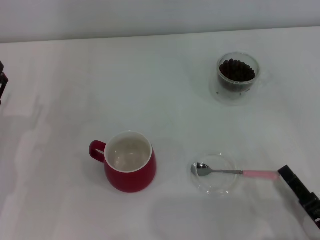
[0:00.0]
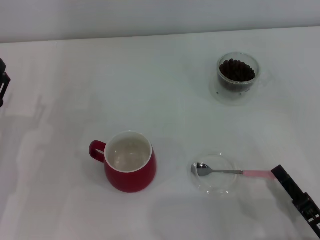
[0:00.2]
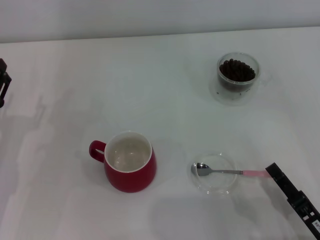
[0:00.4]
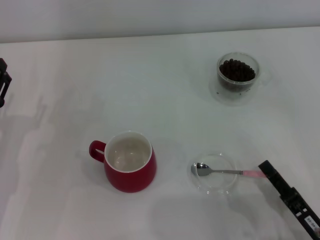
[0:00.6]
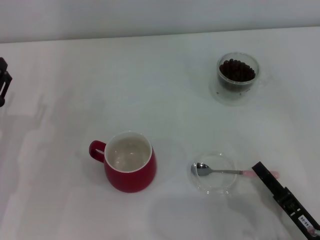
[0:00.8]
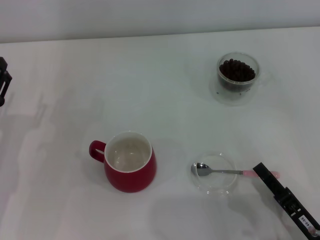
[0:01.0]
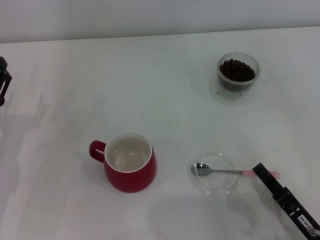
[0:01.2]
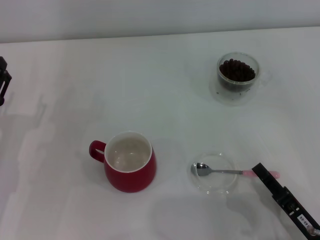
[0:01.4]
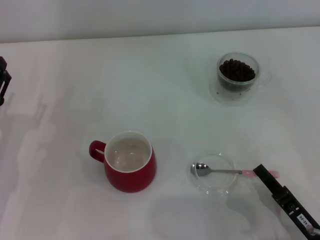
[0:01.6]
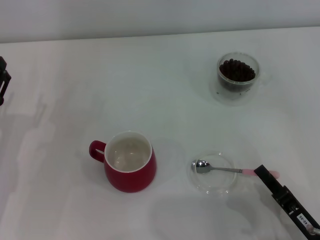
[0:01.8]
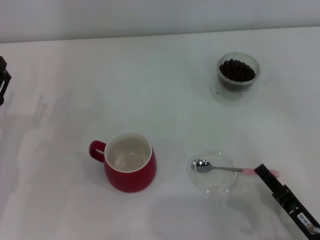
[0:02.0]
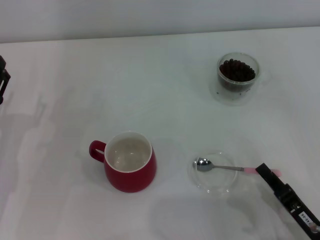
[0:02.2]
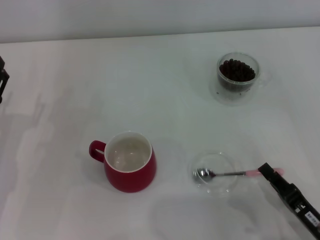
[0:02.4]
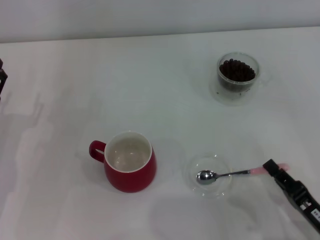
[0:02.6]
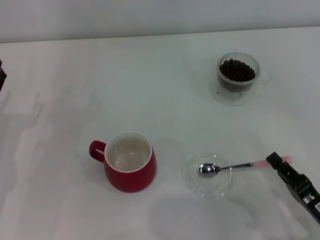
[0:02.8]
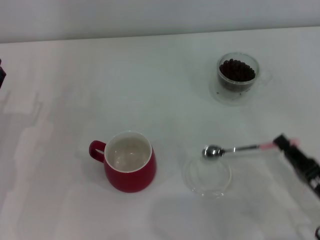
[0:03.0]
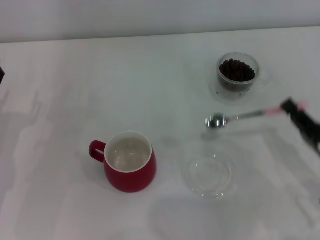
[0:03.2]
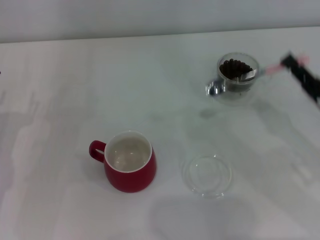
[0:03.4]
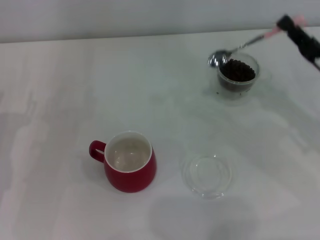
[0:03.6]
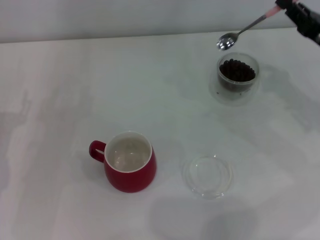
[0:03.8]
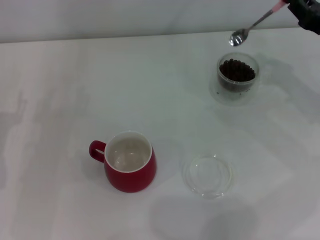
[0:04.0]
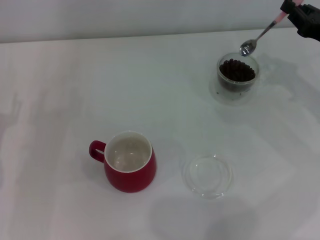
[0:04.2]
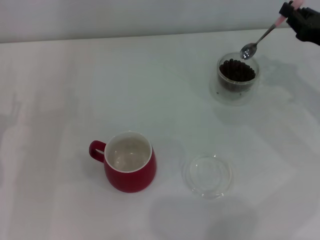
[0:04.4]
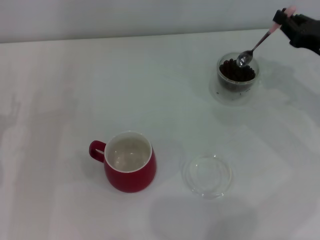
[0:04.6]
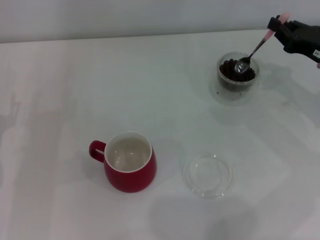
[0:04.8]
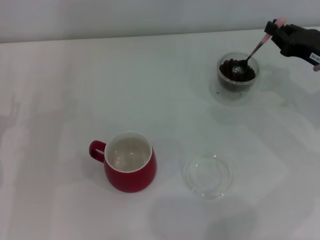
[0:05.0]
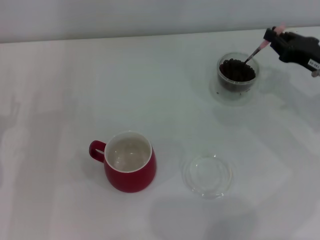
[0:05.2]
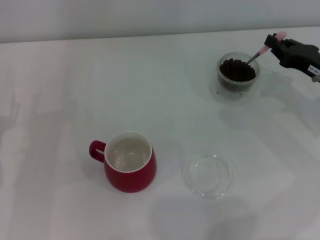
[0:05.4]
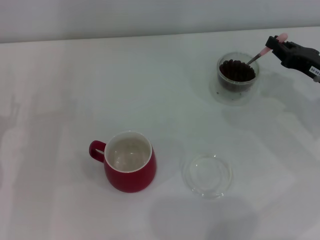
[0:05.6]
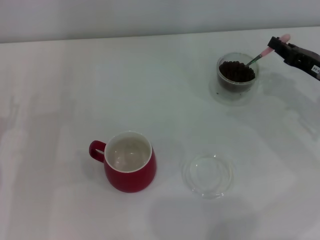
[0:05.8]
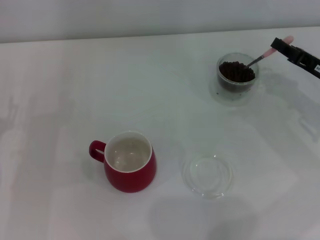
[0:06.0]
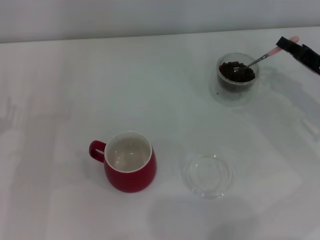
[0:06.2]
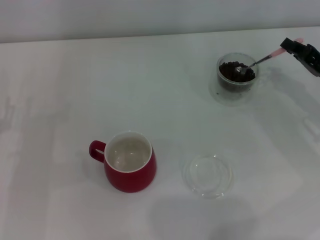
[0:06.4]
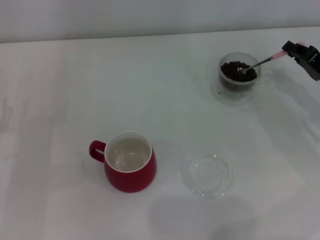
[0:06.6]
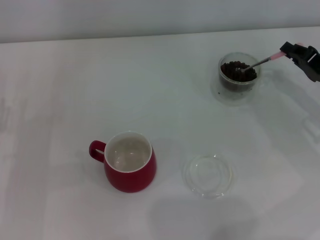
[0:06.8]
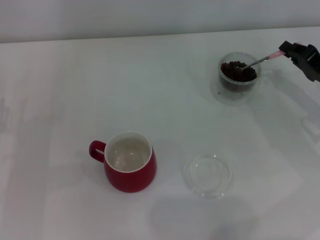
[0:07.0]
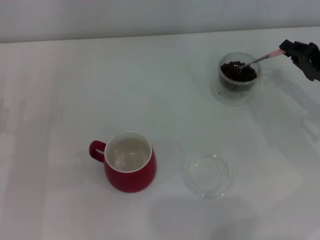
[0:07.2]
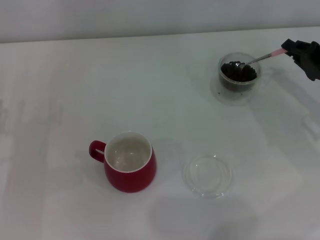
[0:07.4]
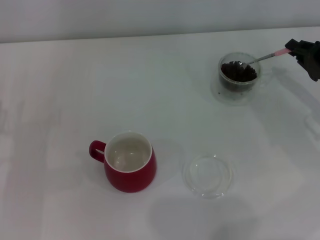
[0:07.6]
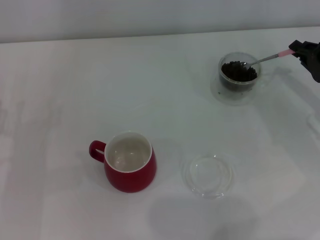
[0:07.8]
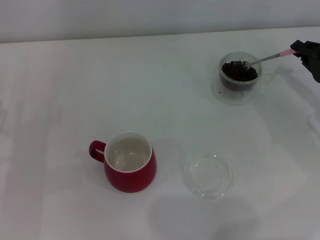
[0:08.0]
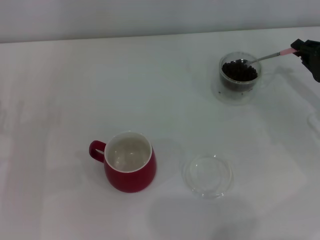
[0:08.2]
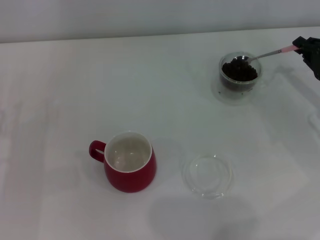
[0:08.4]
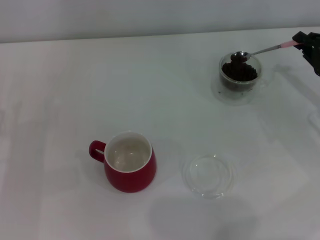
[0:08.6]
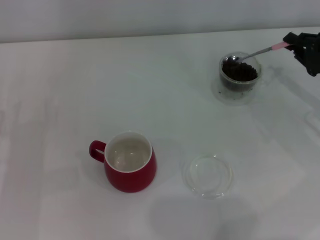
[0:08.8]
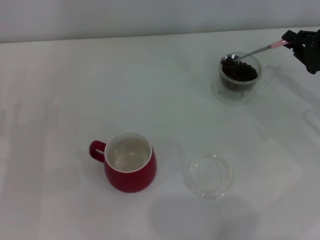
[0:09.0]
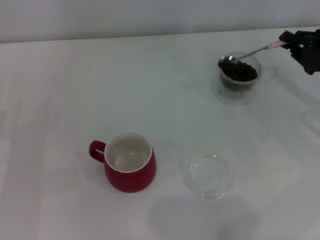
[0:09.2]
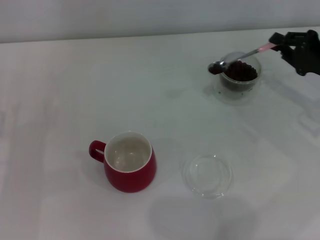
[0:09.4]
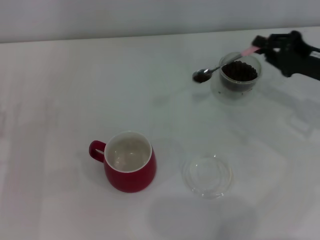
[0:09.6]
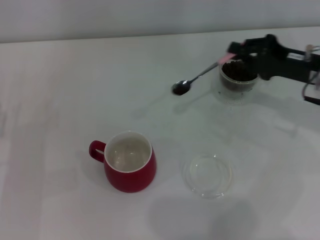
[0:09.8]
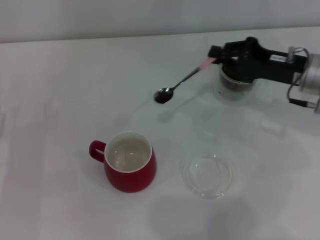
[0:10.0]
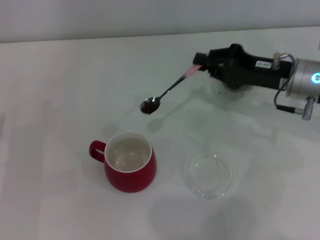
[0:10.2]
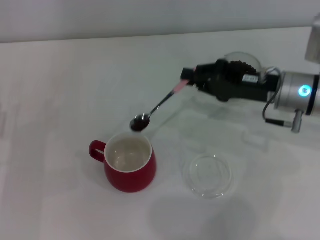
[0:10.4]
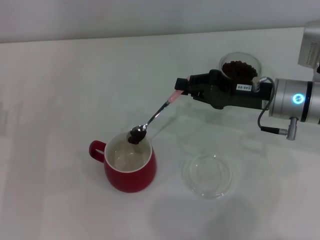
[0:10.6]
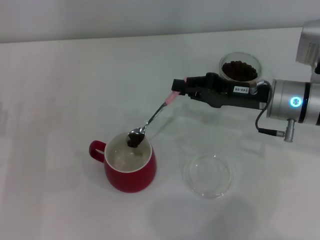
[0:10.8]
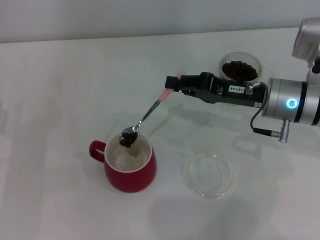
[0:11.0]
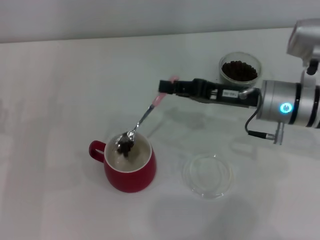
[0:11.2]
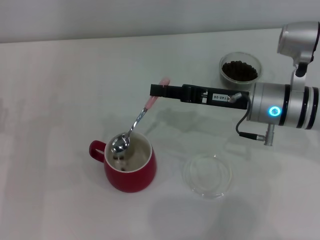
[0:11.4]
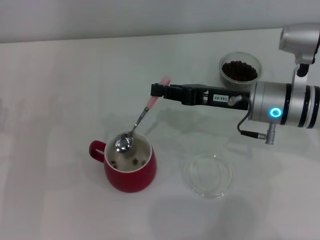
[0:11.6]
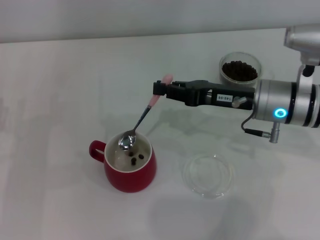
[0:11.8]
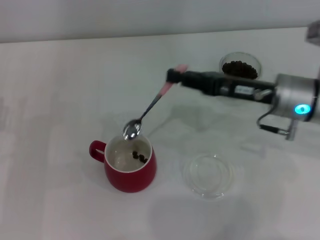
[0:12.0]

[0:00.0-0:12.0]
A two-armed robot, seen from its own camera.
Task of the whole recording: Use a pink spoon to take out the coffee beans from the glass and pour them into the red cup.
Step, 0:00.0 to 0:03.0: Pick up the spoon with the right gripper.
Step, 0:03.2 to 0:12.0: Scoop a spoonful of beans into the cup with the right gripper.
0:00.0 to 0:01.6: The right gripper closes its fingers.
0:01.6 to 0:03.0: The grippers make only small movements.
0:03.0 to 0:04.4: The right gripper is displaced forward and upward by some 25 cm.
0:07.6 to 0:09.0: The grippers make only small movements.
0:09.0 to 0:10.4: The right gripper is displaced to the left by some 10 cm.

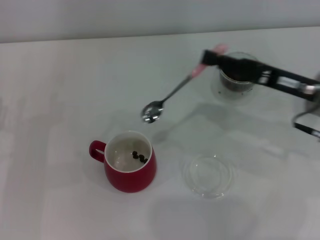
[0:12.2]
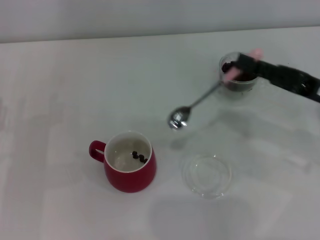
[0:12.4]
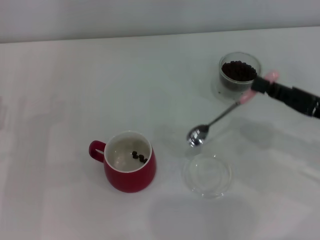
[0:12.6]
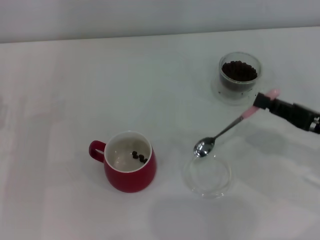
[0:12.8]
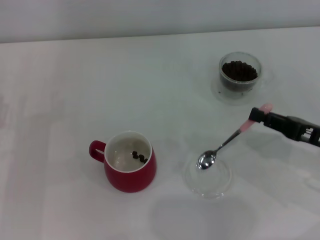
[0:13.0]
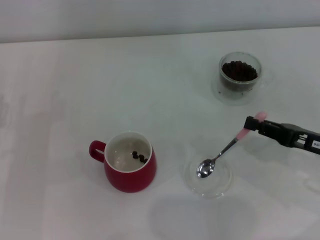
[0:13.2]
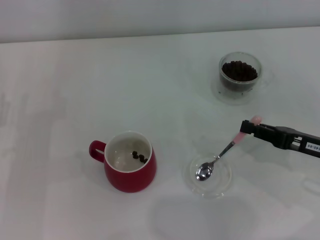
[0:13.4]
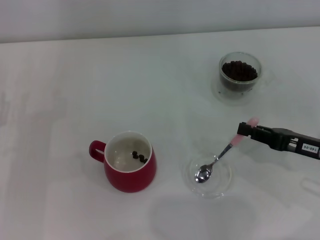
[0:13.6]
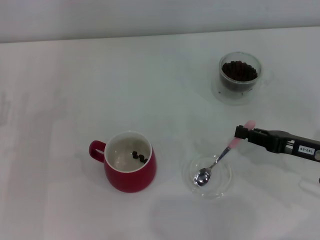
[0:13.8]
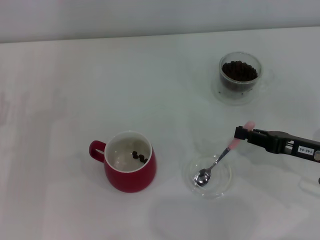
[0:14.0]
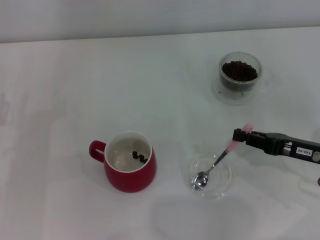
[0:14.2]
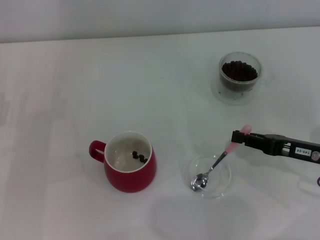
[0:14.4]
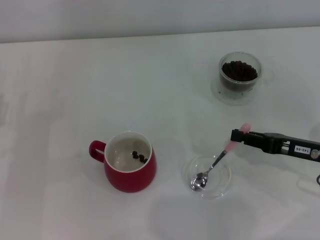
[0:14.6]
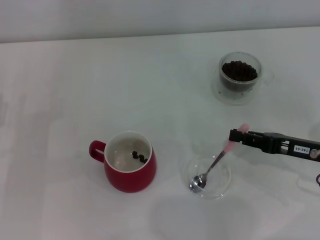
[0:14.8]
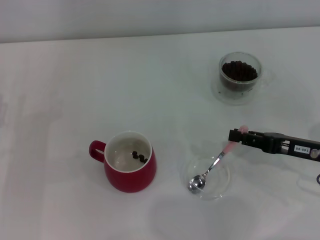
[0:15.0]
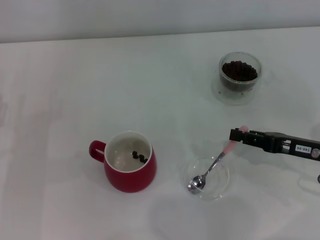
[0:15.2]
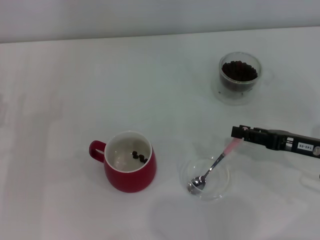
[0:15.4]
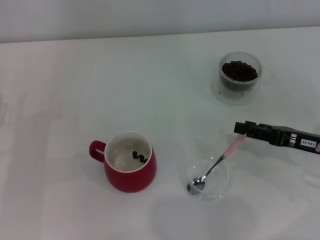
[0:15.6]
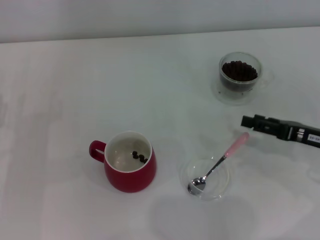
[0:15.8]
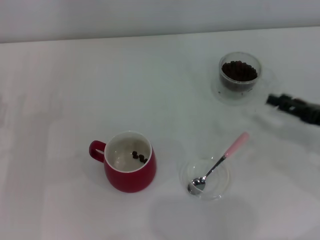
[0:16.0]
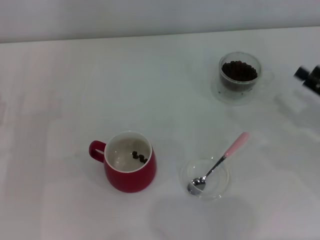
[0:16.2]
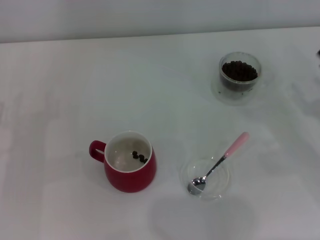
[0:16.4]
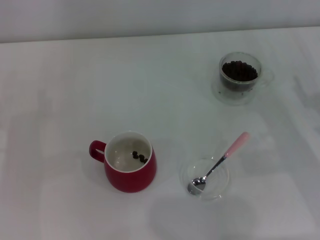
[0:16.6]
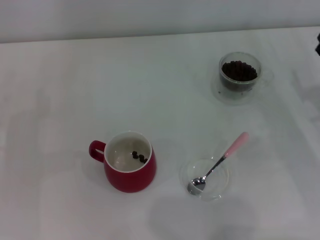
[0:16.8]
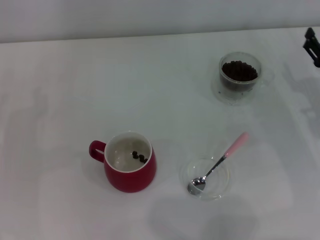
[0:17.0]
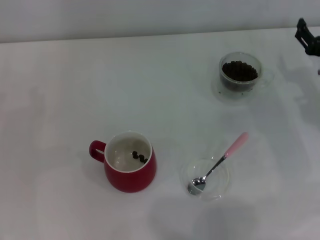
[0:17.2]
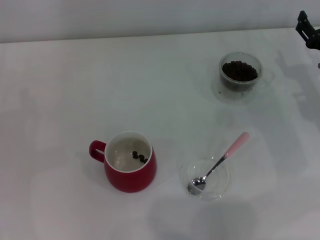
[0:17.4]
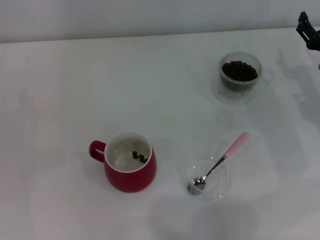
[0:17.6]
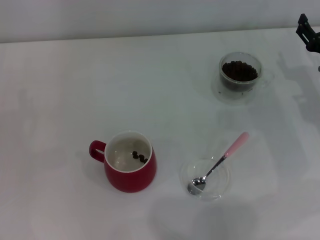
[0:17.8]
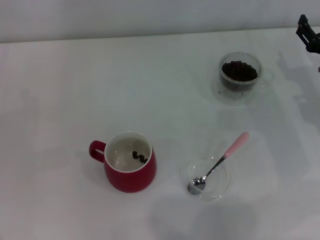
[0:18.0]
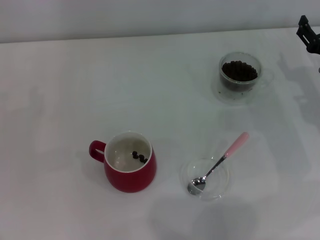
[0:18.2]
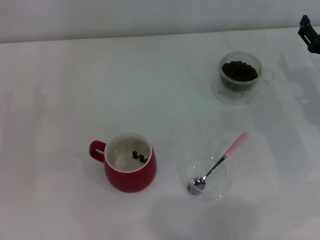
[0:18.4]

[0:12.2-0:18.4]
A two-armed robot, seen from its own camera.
Task of the whole recording: Use a pink spoon to take out the coffee beans from the glass and pour them into the red cup.
Step, 0:12.2 to 0:15.8: Place the spoon back in its original place with the right gripper.
0:12.2 to 0:13.8: The right gripper heads downward, backward and to the right, covering roughly 10 cm.
0:13.8 to 0:15.4: Neither gripper changes place.
0:15.4 to 0:16.8: The right gripper opens up.
